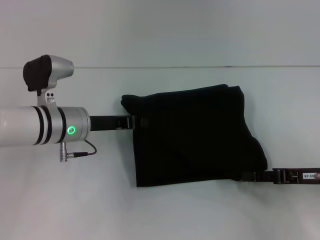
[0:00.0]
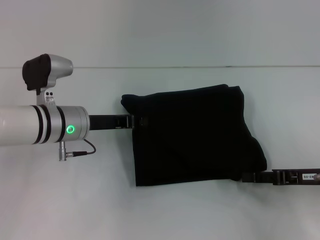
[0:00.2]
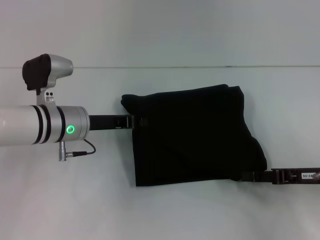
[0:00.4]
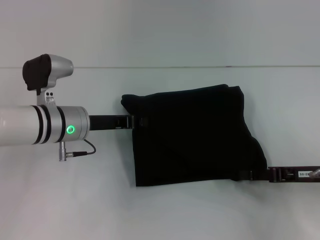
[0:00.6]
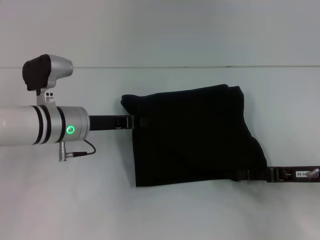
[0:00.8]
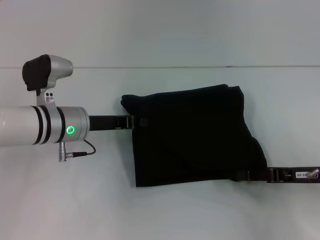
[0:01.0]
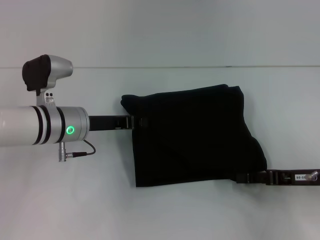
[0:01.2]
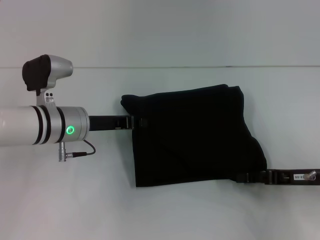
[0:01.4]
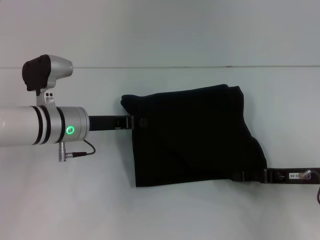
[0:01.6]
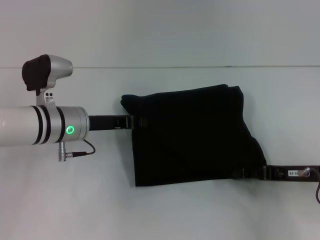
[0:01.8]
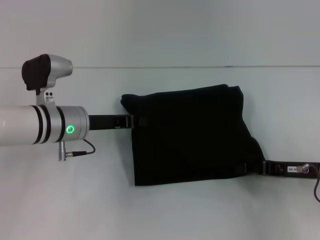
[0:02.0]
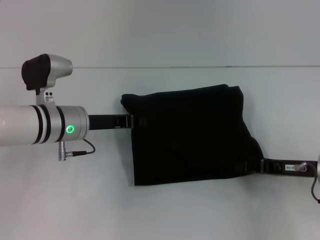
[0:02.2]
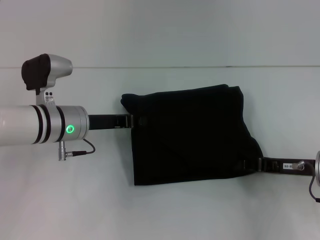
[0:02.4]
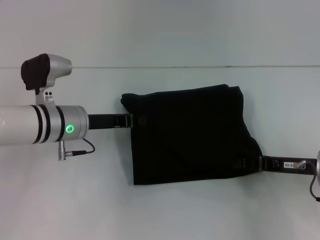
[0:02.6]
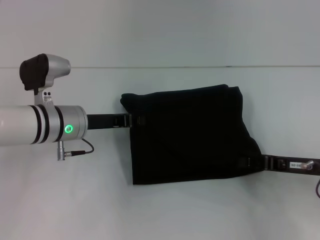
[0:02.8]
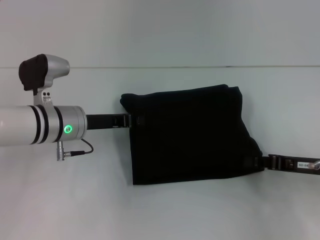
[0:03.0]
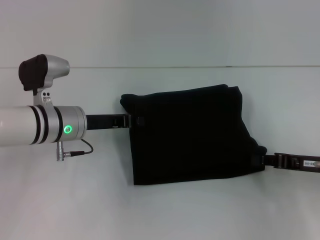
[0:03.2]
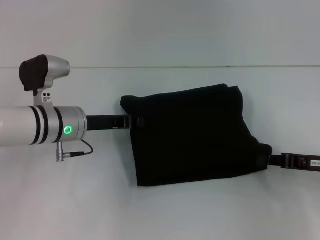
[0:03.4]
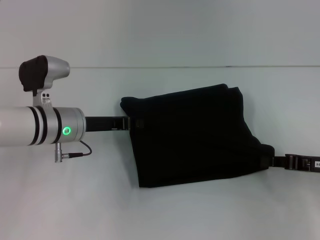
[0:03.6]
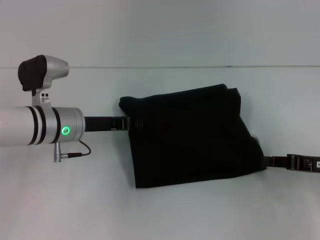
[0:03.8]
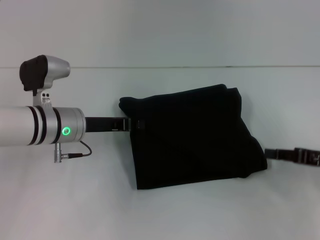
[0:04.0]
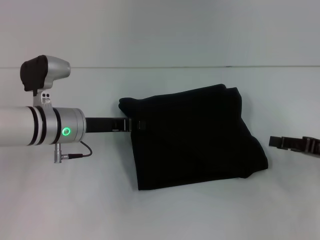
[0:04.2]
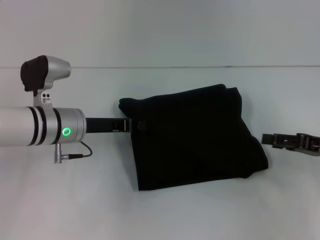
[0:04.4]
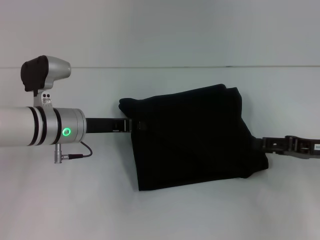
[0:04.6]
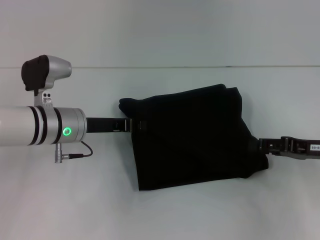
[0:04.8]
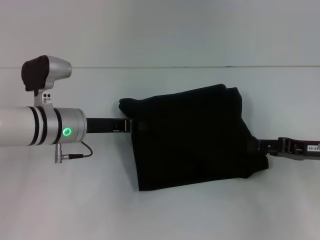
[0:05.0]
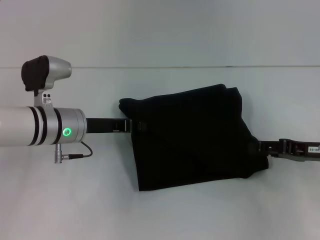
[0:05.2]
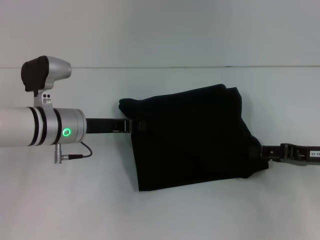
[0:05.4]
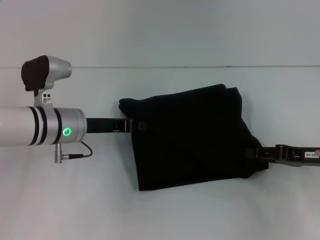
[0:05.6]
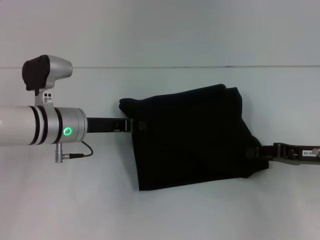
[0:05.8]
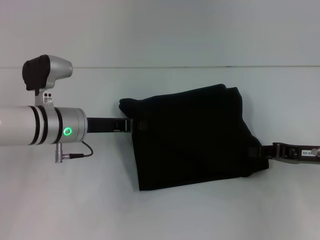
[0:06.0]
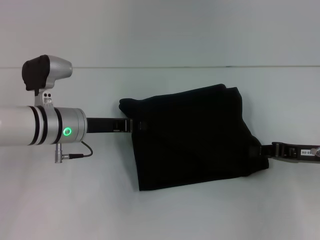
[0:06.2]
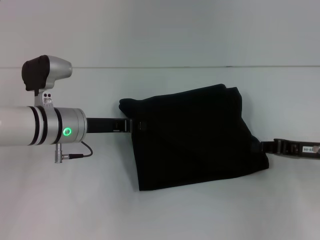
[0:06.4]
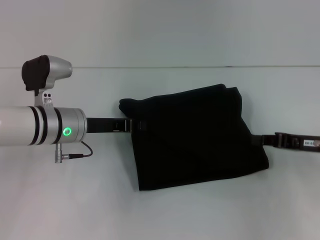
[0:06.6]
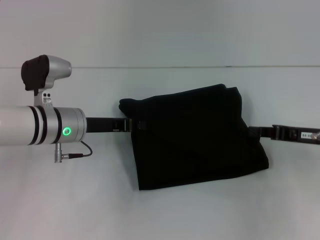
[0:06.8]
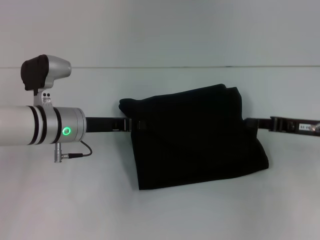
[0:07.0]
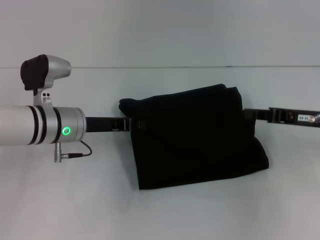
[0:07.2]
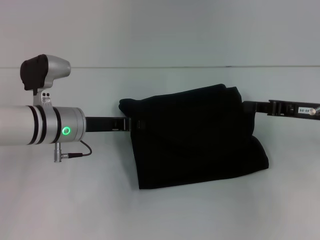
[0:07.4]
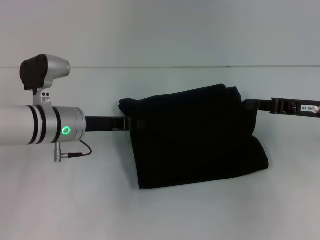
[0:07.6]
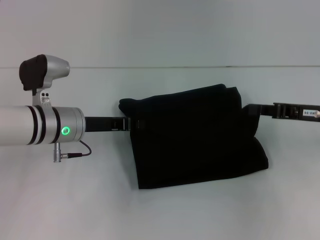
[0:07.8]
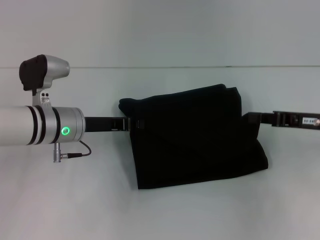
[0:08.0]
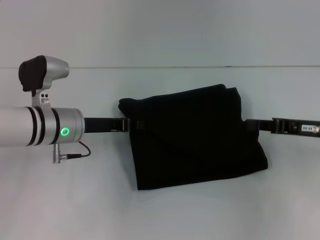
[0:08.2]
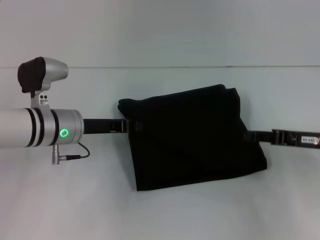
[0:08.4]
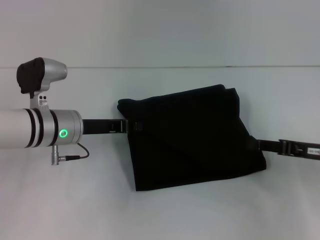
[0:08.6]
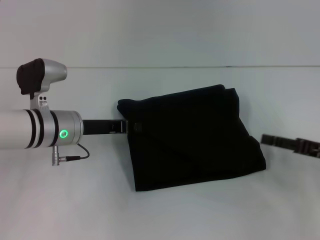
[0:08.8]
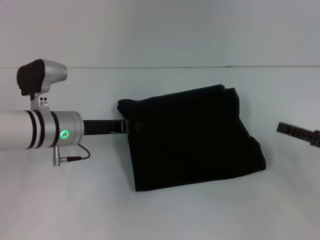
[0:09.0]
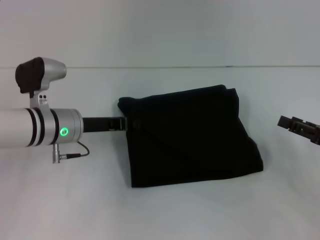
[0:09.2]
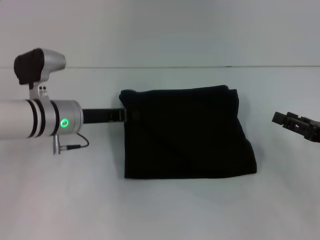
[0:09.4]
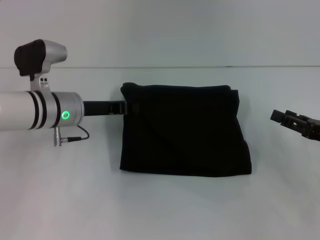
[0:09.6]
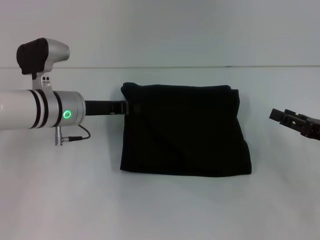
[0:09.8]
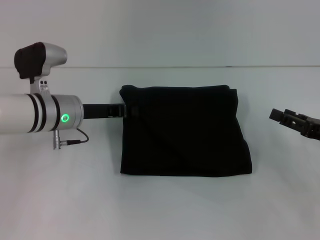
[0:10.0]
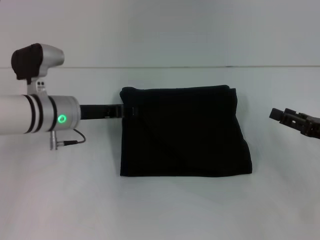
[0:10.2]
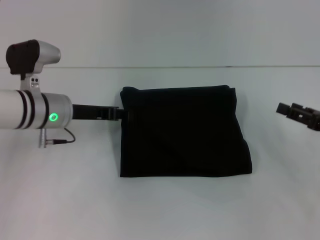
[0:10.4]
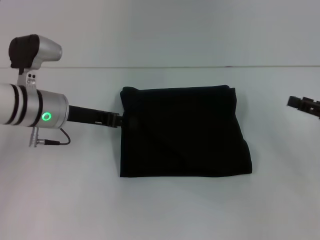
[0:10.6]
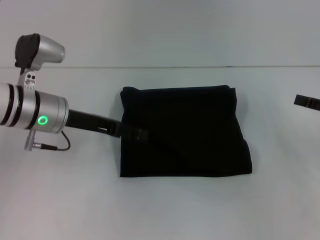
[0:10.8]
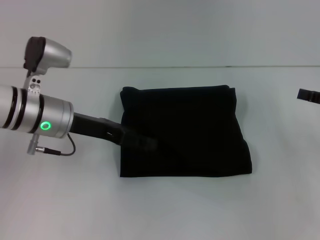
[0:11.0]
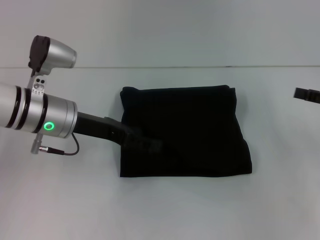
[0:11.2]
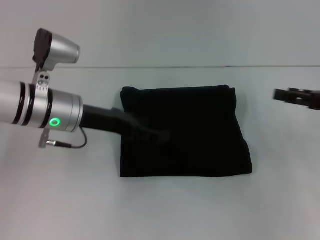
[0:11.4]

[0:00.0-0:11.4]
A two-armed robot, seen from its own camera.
0:00.0 to 0:01.4: The two grippers keep their place.
0:01.4 to 0:02.8: The right gripper closes.
0:02.8 to 0:04.2: The right gripper is displaced to the right by some 5 cm.
0:04.2 to 0:05.6: The grippers stay close to where they were, moving slightly.
0:05.6 to 0:07.2: The right gripper closes its fingers.
0:07.2 to 0:08.6: The right gripper shifts by some 5 cm, and opens.
0:08.6 to 0:10.0: The right gripper opens.
0:10.0 to 0:11.4: The right gripper goes roughly 5 cm upward. Meanwhile the left gripper opens up.

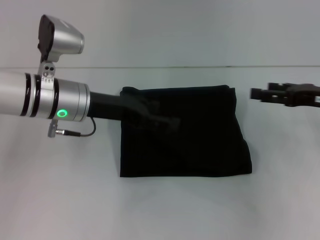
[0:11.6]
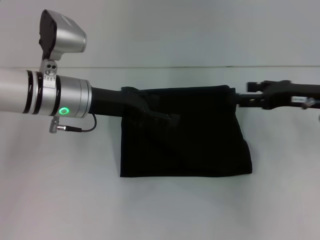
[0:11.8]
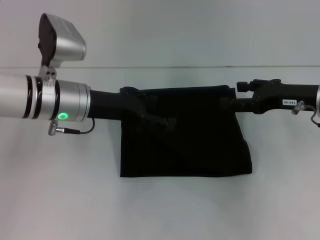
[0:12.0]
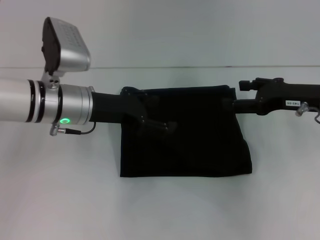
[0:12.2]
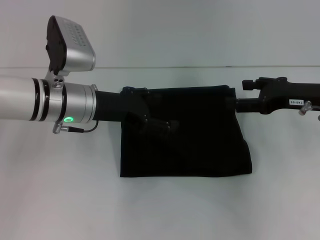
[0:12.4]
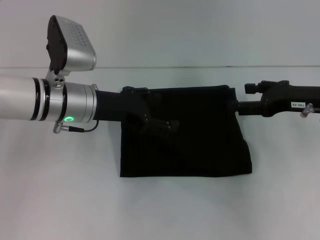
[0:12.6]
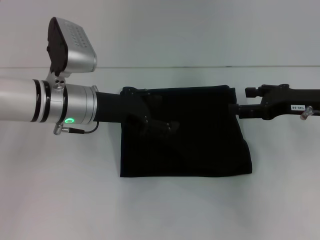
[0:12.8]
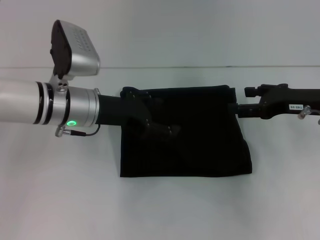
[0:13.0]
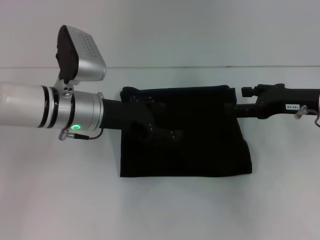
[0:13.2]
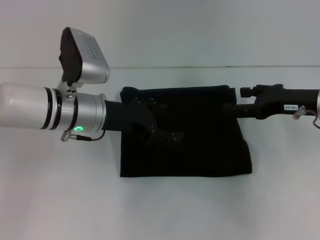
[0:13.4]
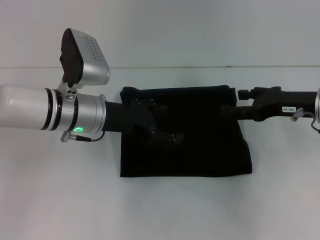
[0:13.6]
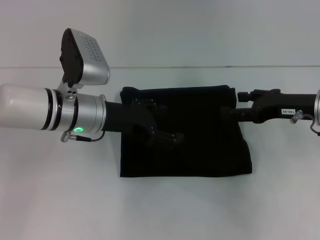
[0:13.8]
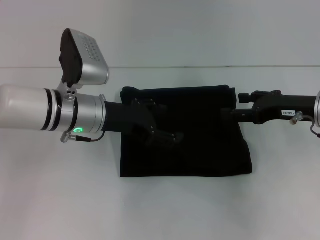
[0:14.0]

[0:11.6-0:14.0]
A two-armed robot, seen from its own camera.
0:11.6 to 0:14.0: The grippers move only a little.

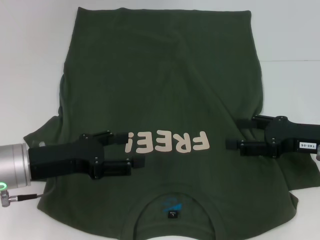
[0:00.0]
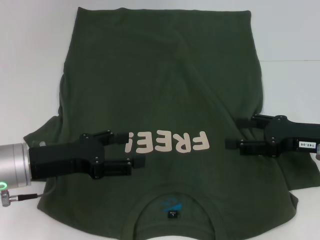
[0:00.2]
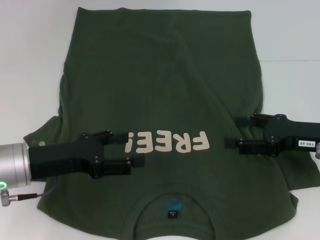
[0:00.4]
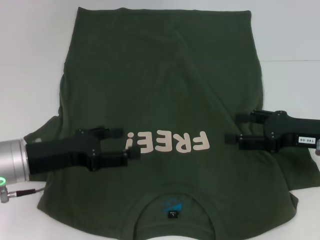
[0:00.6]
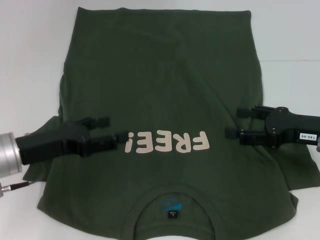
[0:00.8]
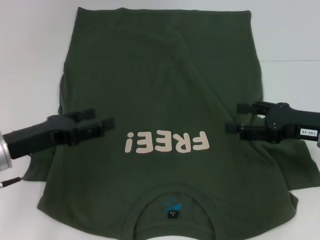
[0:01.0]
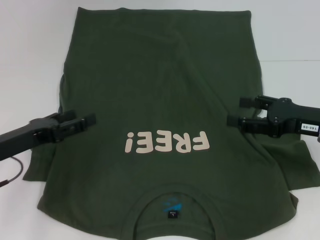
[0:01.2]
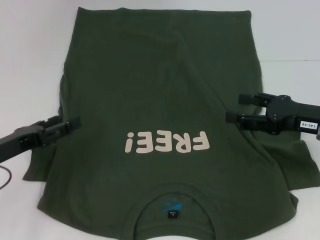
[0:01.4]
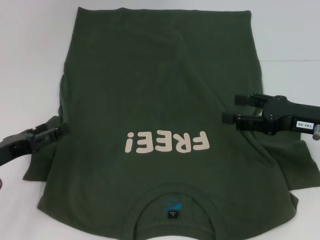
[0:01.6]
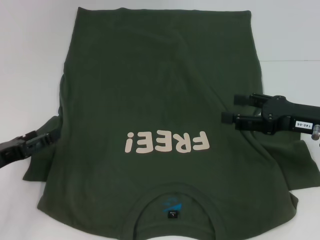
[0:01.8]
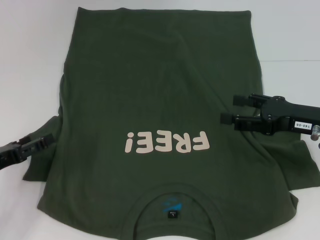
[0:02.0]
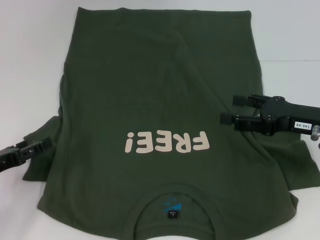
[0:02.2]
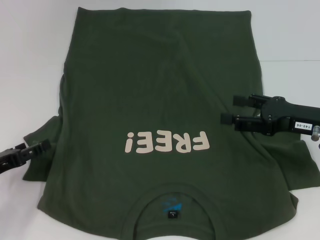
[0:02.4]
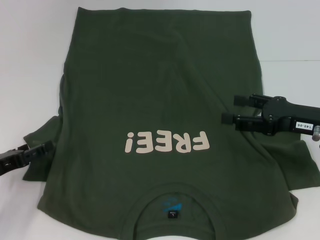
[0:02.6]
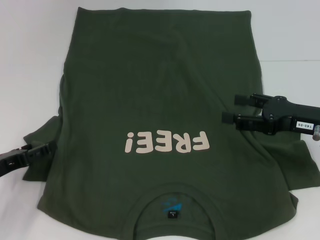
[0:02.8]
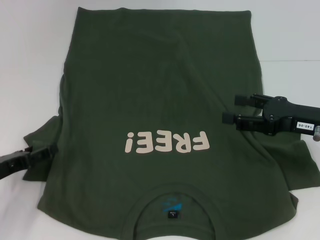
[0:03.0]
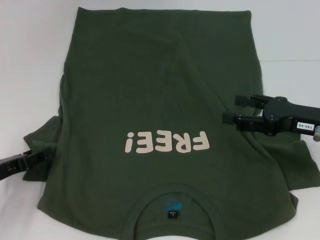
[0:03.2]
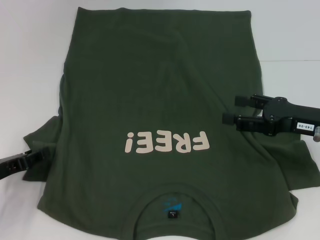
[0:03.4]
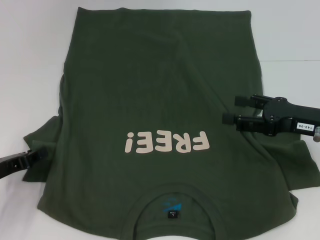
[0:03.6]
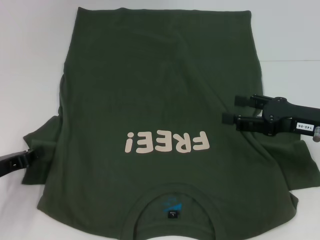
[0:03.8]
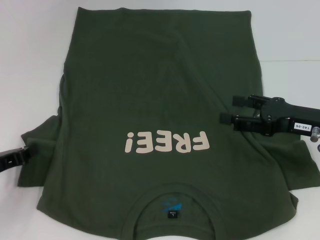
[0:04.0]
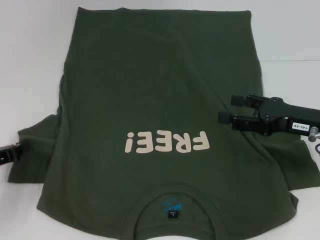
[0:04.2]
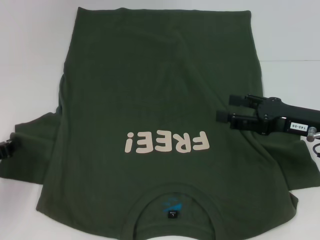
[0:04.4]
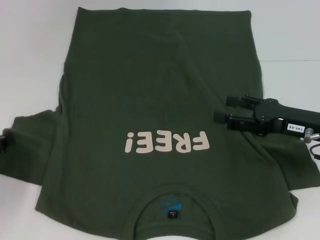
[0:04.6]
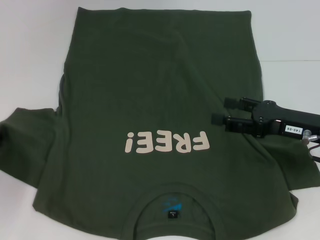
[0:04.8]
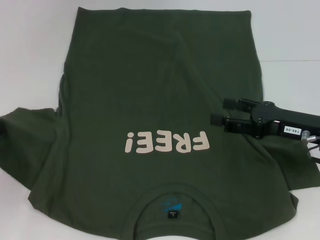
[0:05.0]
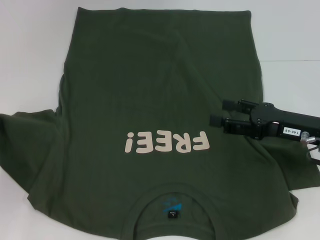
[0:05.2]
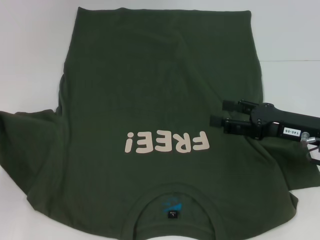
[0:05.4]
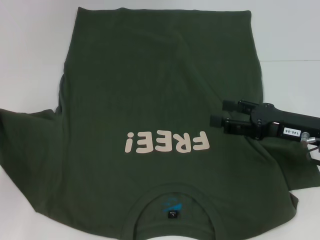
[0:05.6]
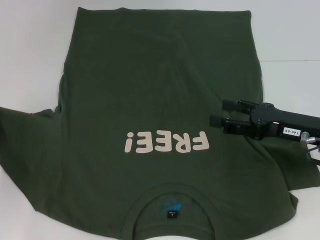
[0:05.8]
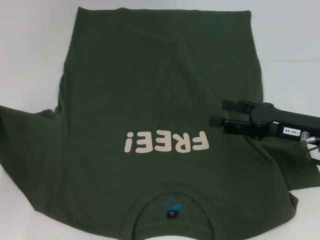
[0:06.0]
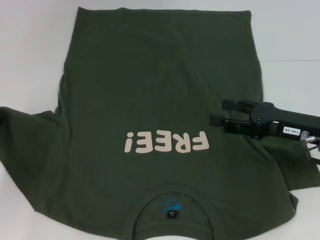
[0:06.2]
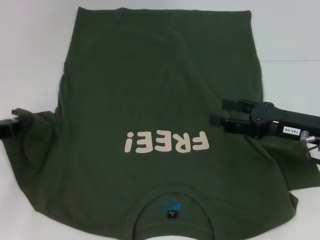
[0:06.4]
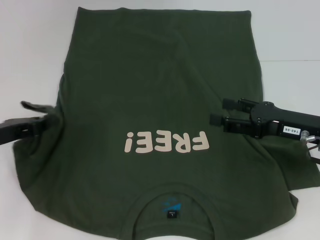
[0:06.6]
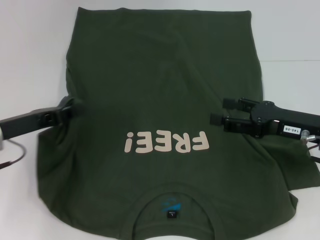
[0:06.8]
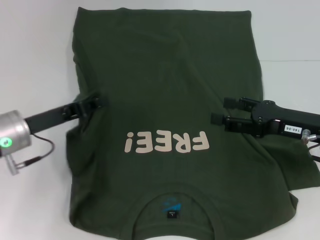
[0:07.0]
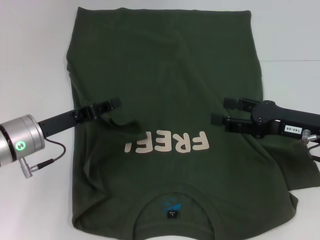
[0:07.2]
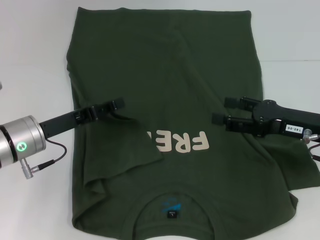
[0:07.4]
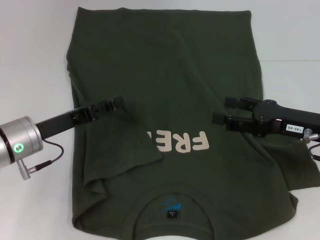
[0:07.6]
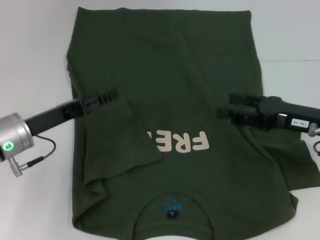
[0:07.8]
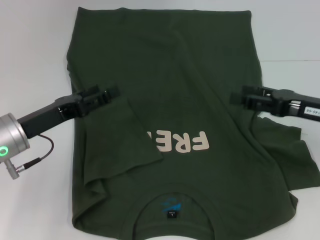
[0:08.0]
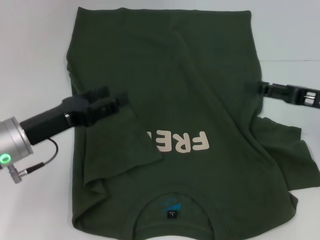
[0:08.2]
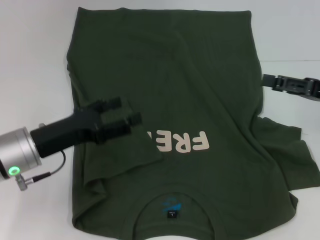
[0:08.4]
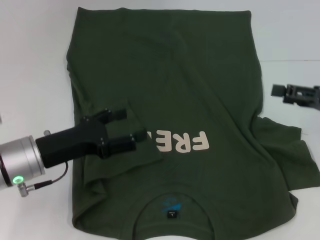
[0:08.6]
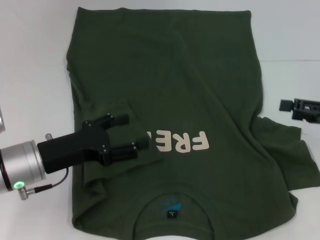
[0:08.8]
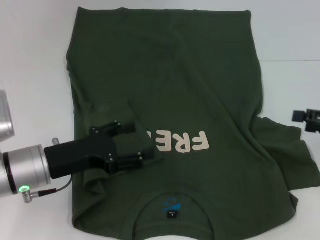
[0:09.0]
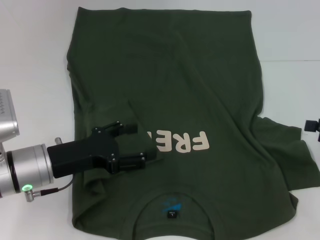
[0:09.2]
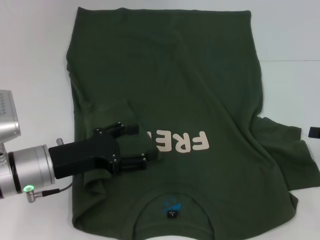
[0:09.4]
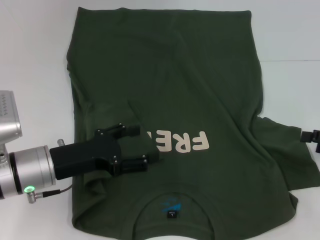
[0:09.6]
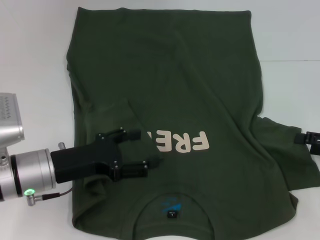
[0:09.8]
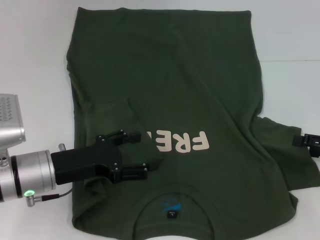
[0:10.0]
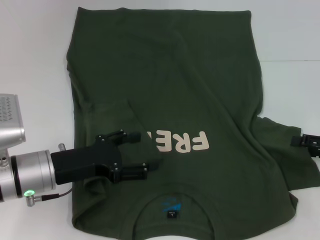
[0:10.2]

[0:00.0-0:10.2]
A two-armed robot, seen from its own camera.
Step, 0:00.0 to 0:07.4: Fold the bottom left sleeve with your left hand.
0:00.0 to 0:01.4: The left gripper shifts roughly 5 cm to the left.
0:01.4 to 0:03.0: The grippers stay close to where they were, moving slightly.
0:03.0 to 0:04.4: The left gripper closes its fingers.
0:04.4 to 0:05.8: There are only small adjustments of the grippers.
0:05.8 to 0:07.2: The left gripper goes some 15 cm to the right.
0:07.2 to 0:08.8: The left gripper opens. The right gripper travels to the right by approximately 10 cm.
0:08.8 to 0:10.2: The right gripper moves approximately 5 cm.
